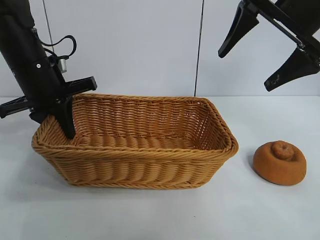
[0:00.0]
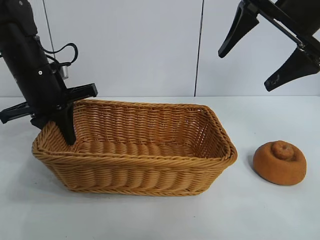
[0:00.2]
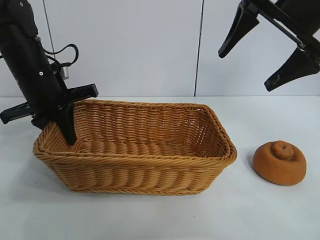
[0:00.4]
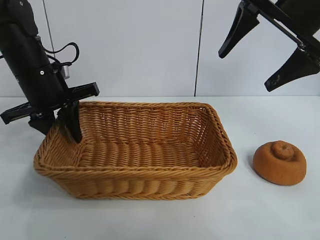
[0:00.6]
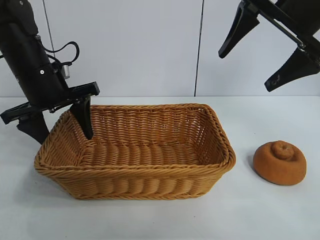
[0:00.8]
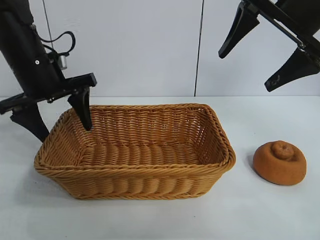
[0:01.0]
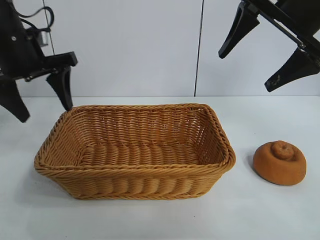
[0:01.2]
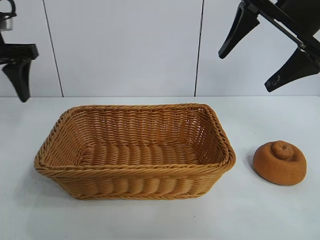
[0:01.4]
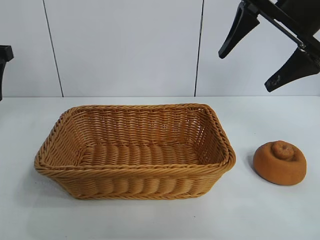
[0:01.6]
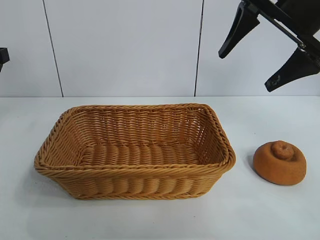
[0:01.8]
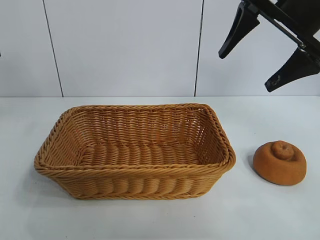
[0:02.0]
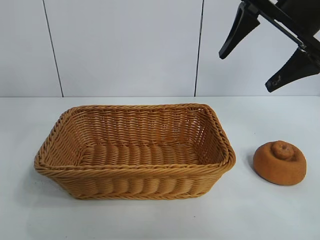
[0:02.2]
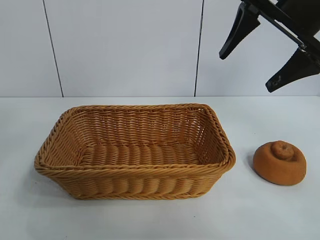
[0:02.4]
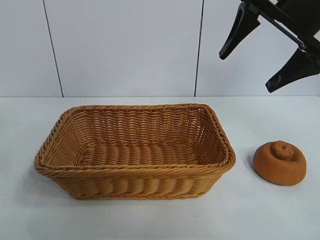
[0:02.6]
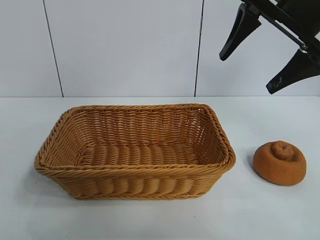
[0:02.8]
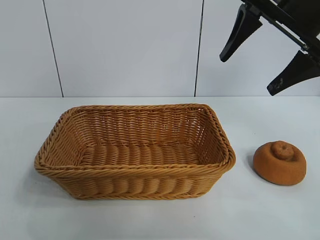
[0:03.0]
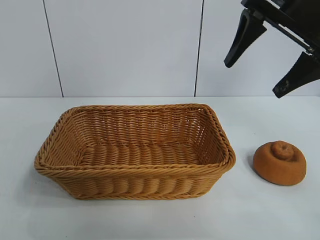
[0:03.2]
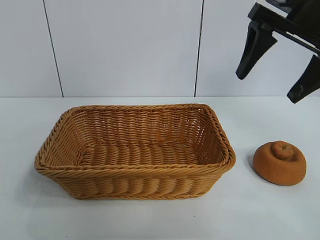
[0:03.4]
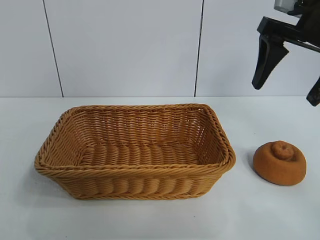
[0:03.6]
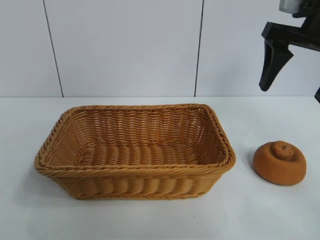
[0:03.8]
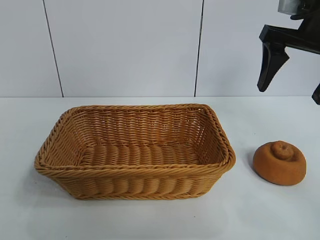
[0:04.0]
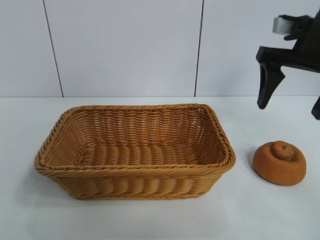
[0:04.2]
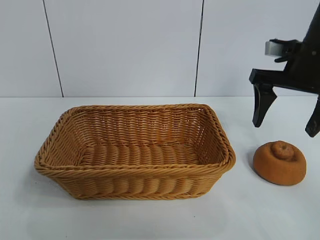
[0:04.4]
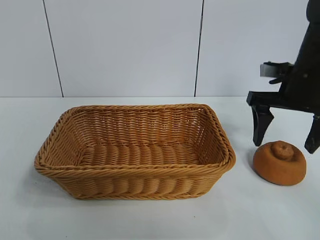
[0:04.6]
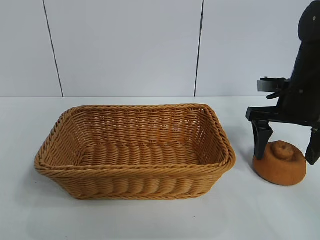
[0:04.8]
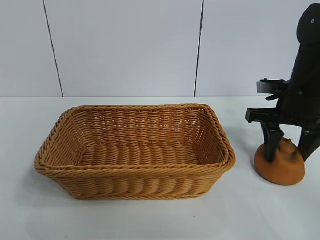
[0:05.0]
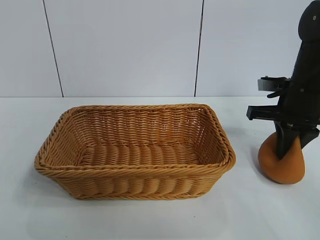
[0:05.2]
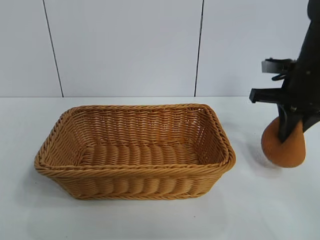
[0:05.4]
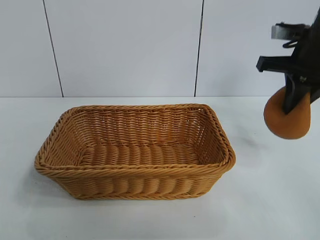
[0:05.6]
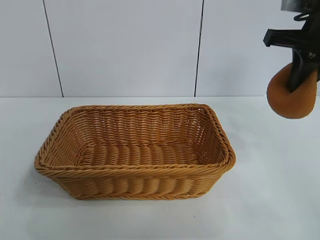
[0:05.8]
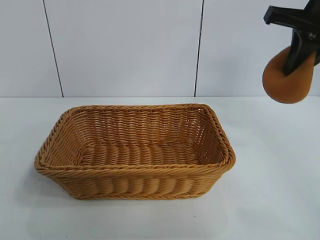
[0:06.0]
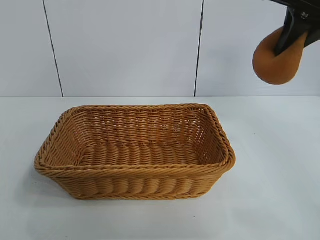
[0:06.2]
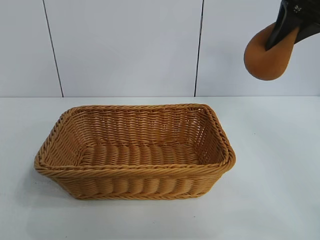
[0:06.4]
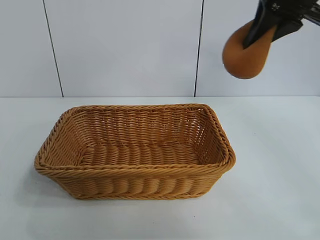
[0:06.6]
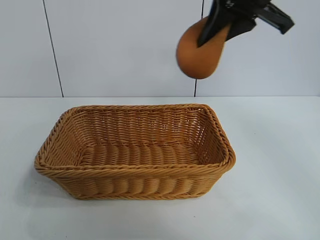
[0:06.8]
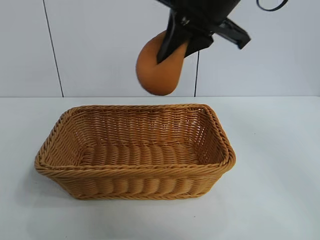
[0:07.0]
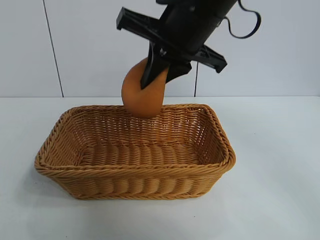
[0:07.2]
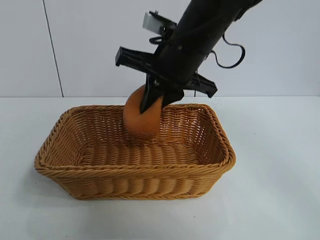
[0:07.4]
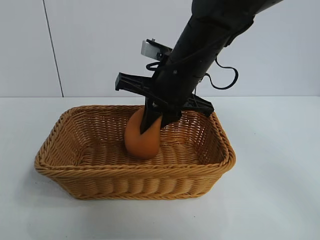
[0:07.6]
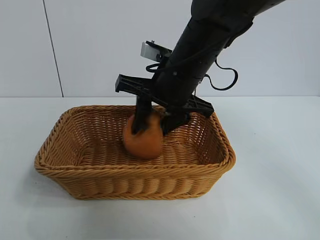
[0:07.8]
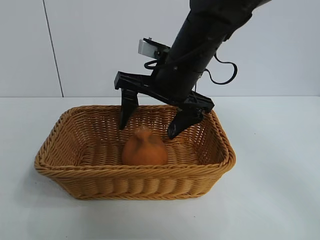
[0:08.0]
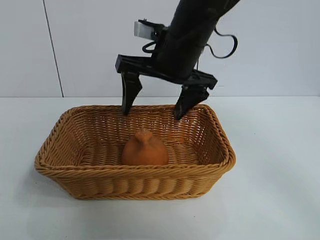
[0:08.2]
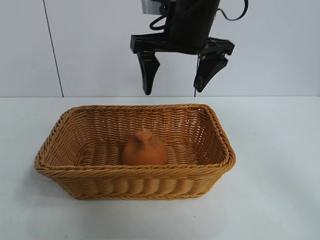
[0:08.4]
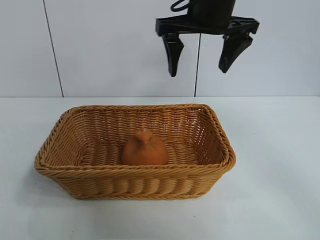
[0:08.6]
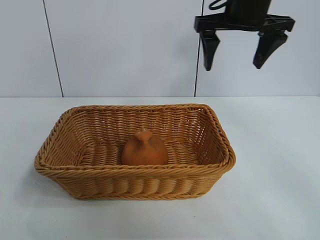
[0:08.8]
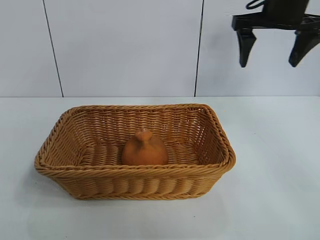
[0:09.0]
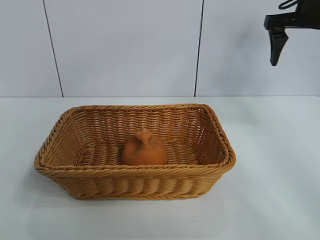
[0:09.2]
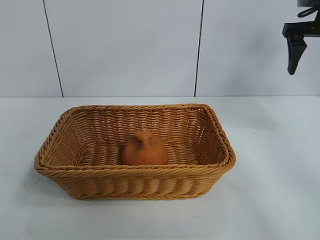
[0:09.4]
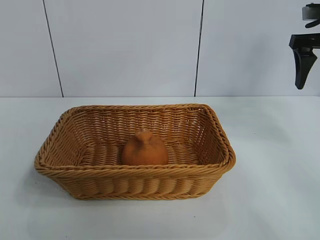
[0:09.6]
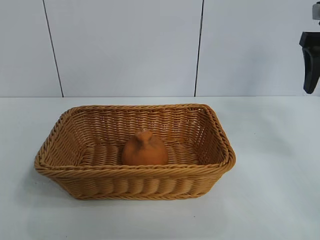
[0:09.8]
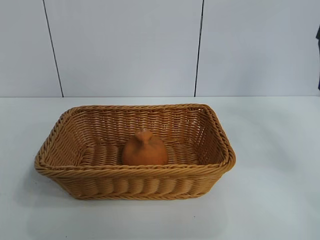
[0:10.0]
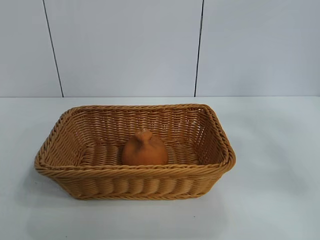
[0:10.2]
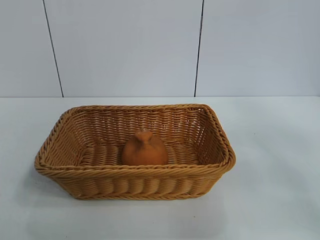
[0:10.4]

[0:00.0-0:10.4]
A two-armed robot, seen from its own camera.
Task of the whole recording: pick up the orange and put it into the basket.
Step, 0:01.0 to 0:05.0: Grasp the orange with right gripper.
Step, 0:05.2 to 0:08.0: Place the orange in the basket with right gripper.
